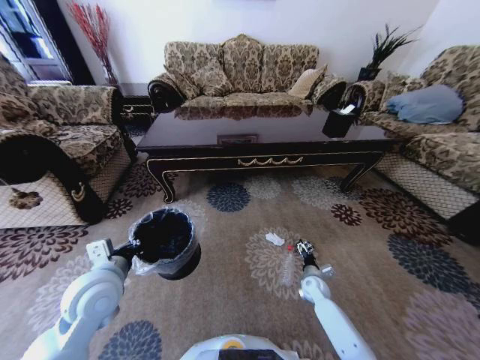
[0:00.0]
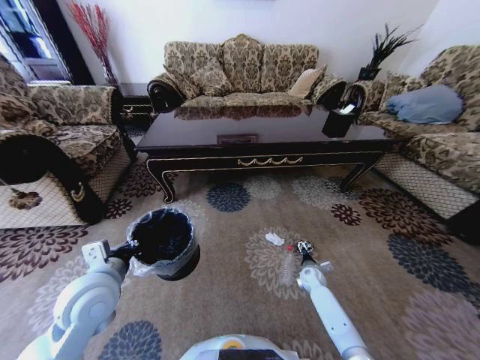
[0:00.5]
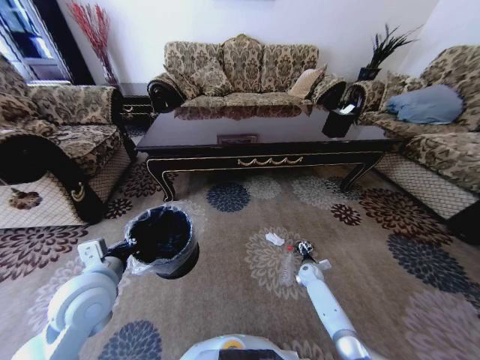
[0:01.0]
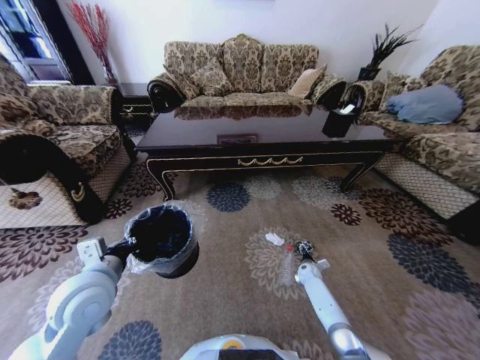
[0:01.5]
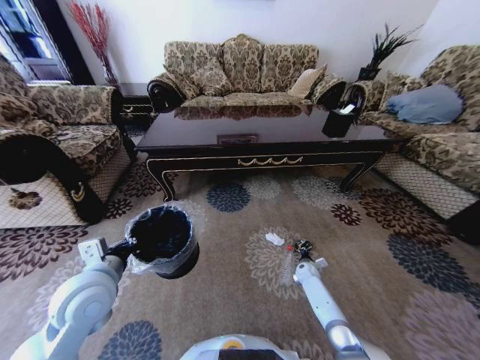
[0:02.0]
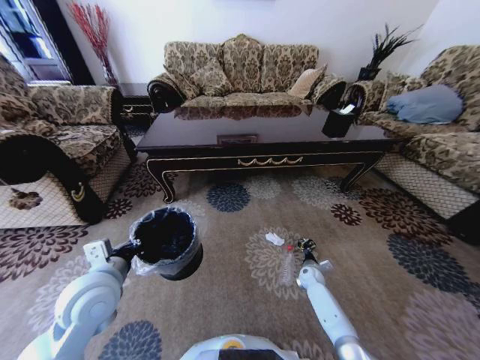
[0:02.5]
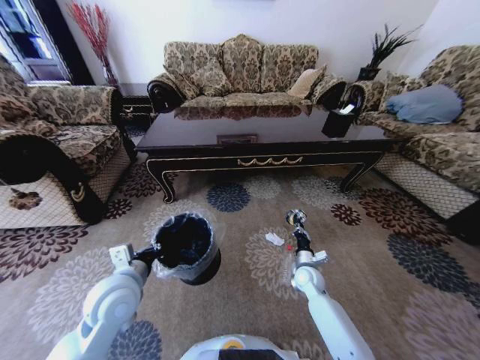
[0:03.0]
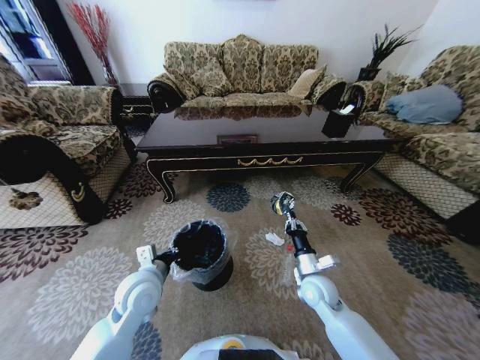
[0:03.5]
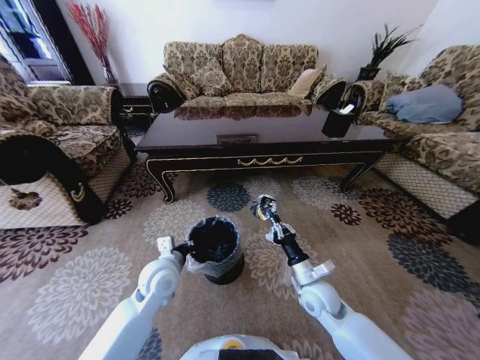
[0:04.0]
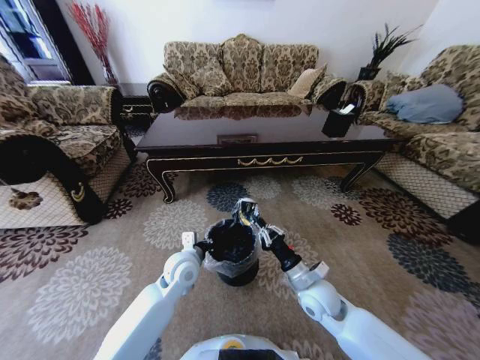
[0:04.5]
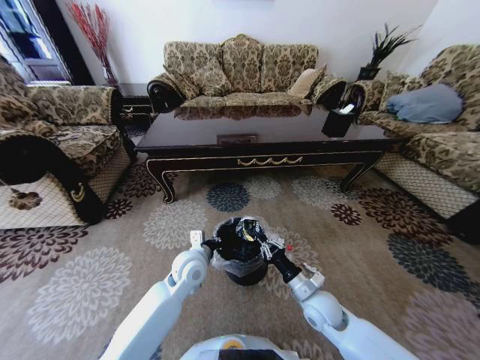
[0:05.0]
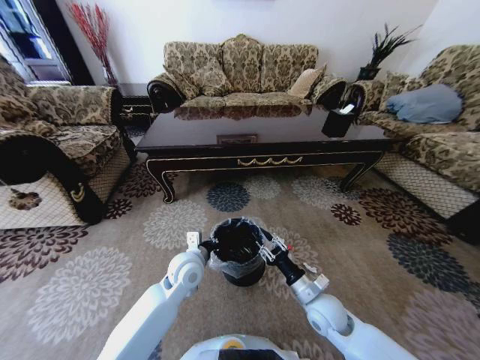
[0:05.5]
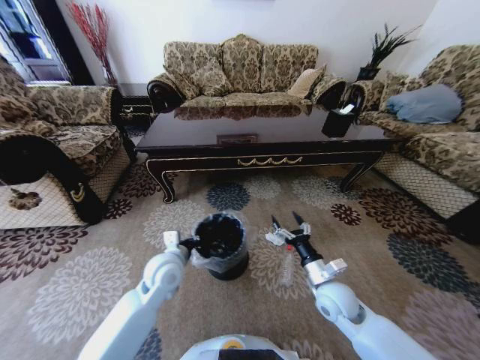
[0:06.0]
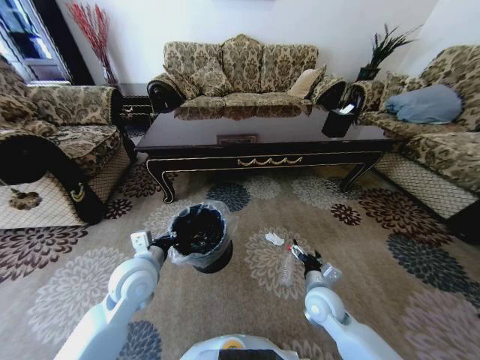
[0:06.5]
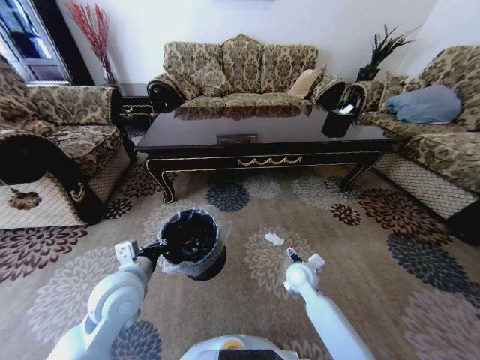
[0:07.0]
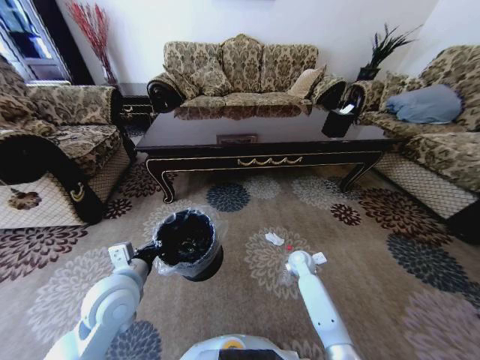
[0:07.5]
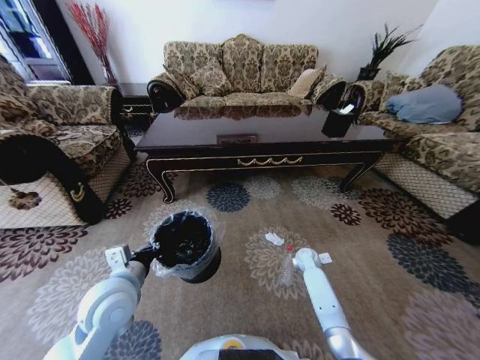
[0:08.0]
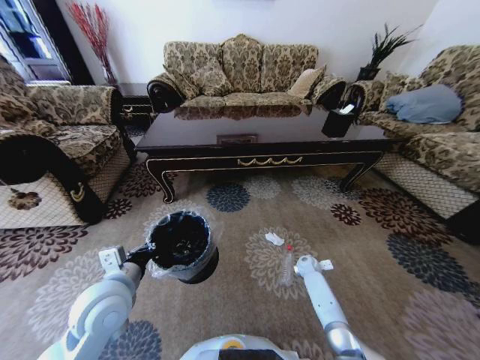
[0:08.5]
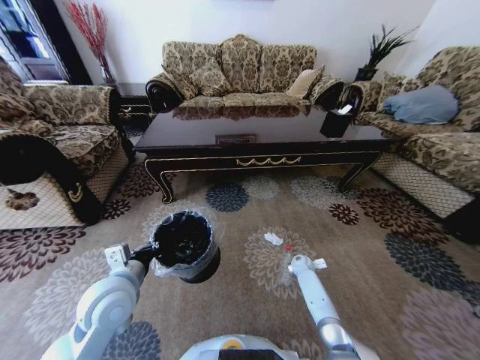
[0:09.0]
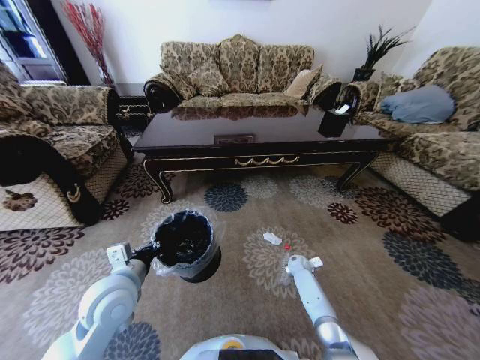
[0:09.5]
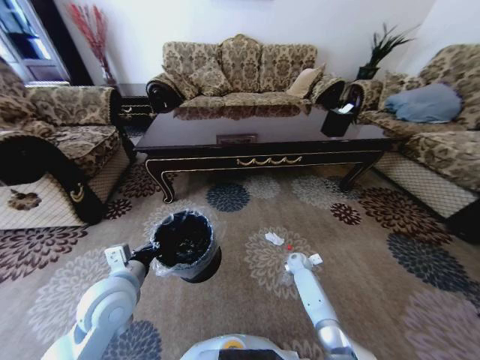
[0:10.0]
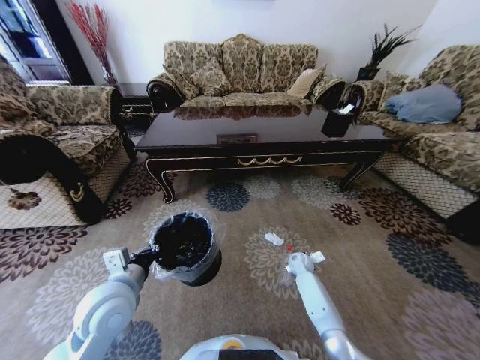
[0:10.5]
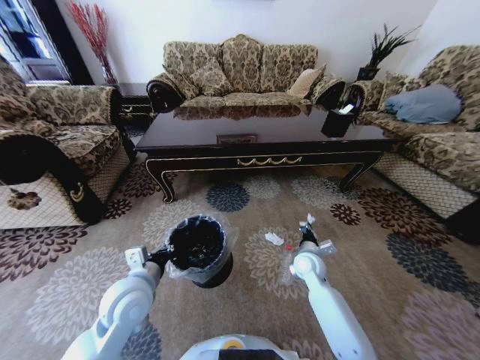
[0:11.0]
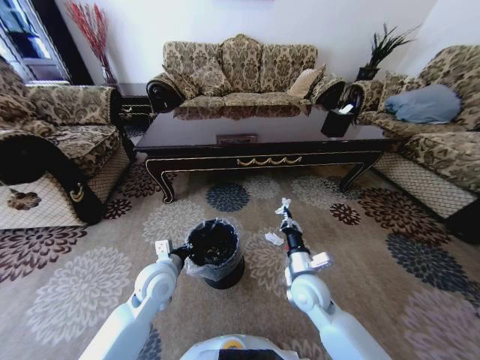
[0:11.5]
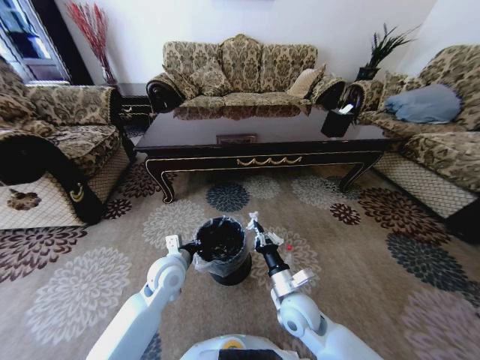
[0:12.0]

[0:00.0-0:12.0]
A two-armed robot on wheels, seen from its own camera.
Task of the whole recording: Move to the front of the table and pick up the trash from the floor, then place it into the trash bin.
0:00.0 to 0:02.0: The right gripper travels forward by roughly 10 cm, and closes.
0:02.0 to 0:04.0: The right gripper travels upward, backward and to the left by some 30 cm; the left gripper is displaced to the right, downward and forward by roughly 15 cm.
0:04.0 to 0:06.0: The right gripper opens its fingers.
0:06.0 to 0:08.0: The right gripper heads forward and downward, covering about 25 cm, while the left gripper shifts roughly 15 cm backward, to the left and upward.
0:08.0 to 0:10.0: The right gripper closes up.
0:10.0 to 0:12.0: The right gripper shifts about 30 cm backward, upward and to the left, while the left gripper heads forward, to the right and downward, covering approximately 15 cm.

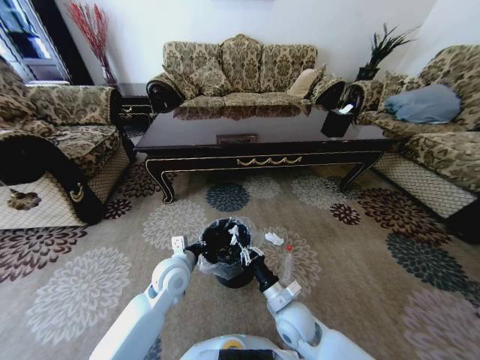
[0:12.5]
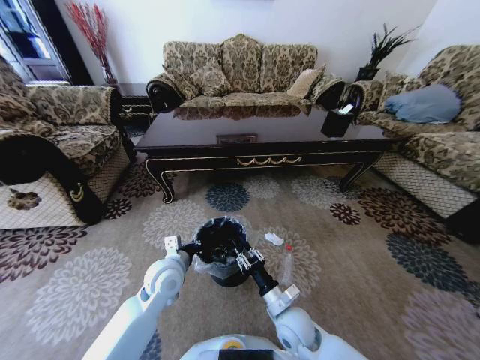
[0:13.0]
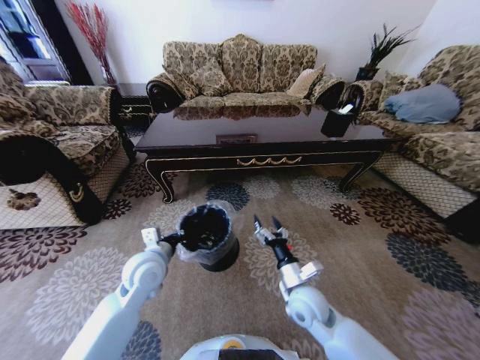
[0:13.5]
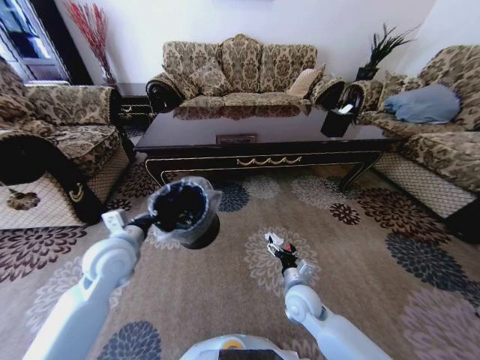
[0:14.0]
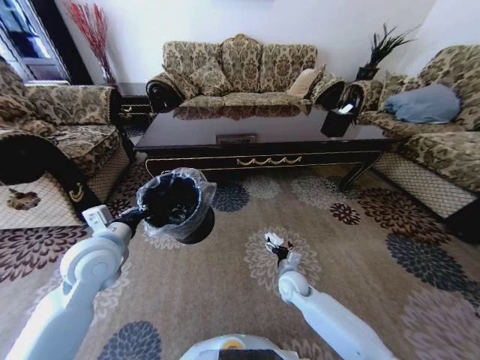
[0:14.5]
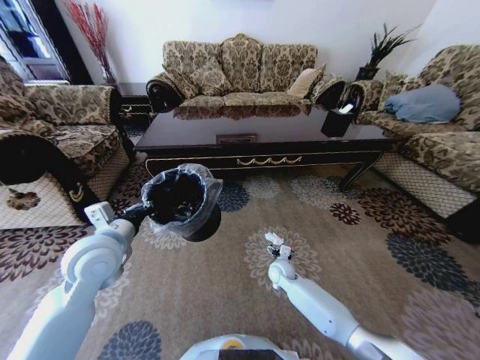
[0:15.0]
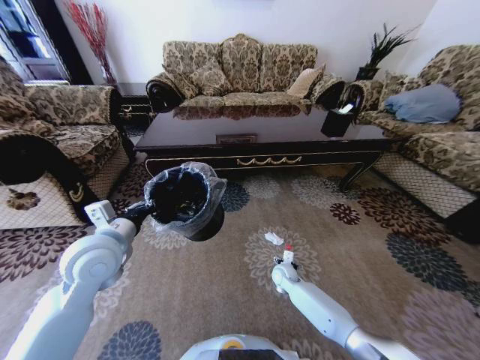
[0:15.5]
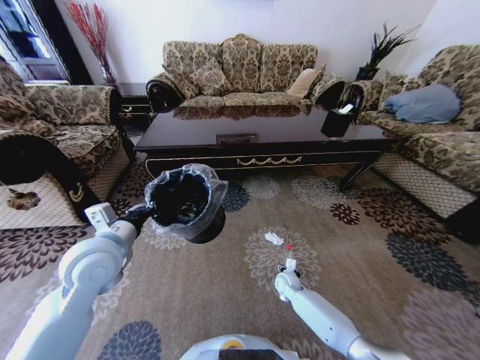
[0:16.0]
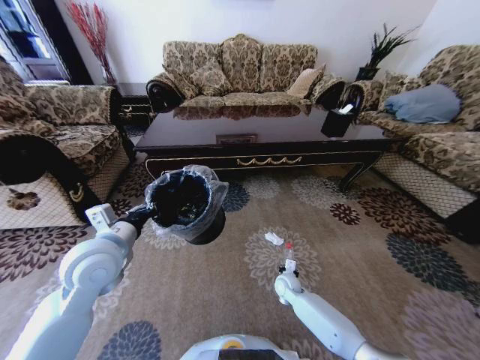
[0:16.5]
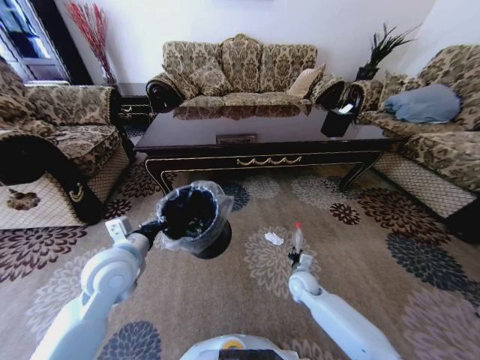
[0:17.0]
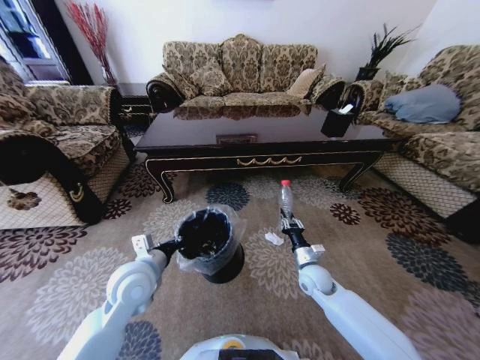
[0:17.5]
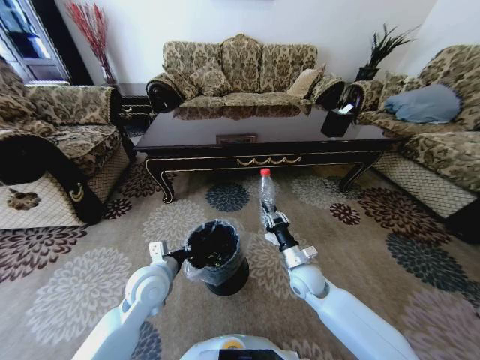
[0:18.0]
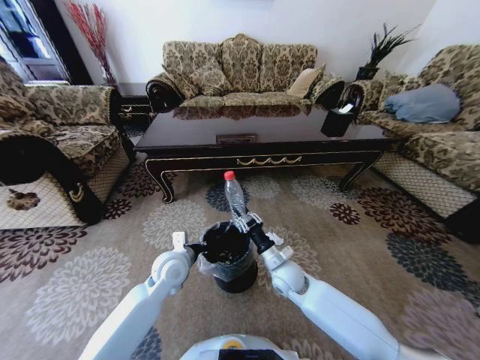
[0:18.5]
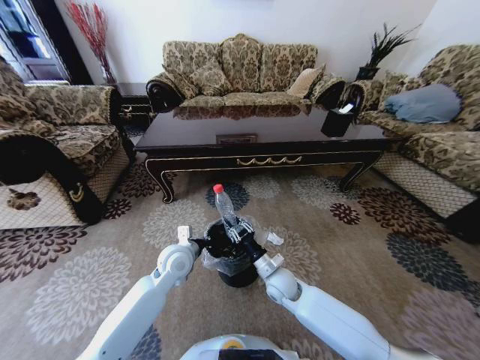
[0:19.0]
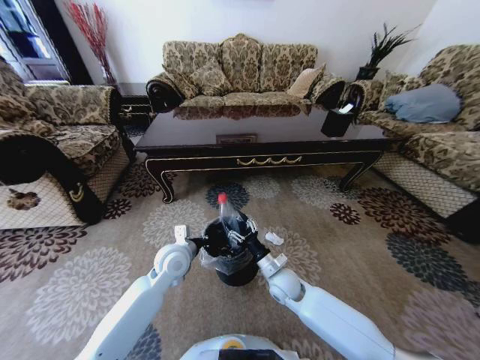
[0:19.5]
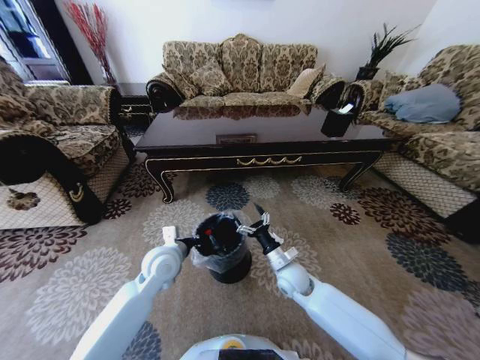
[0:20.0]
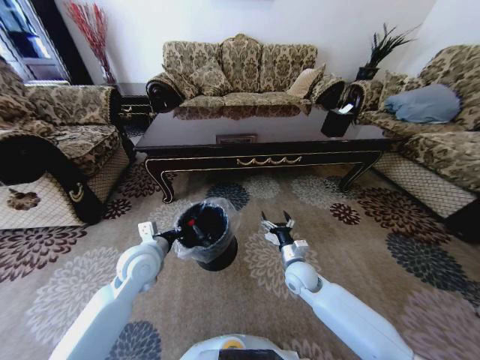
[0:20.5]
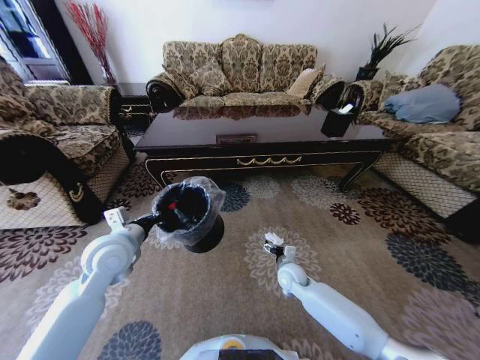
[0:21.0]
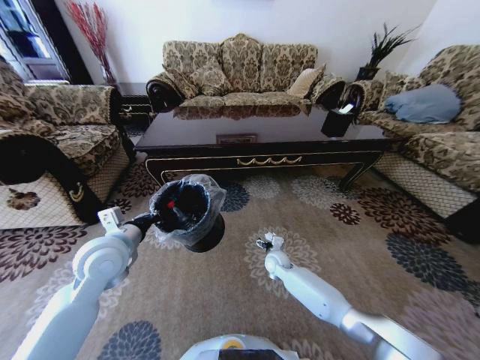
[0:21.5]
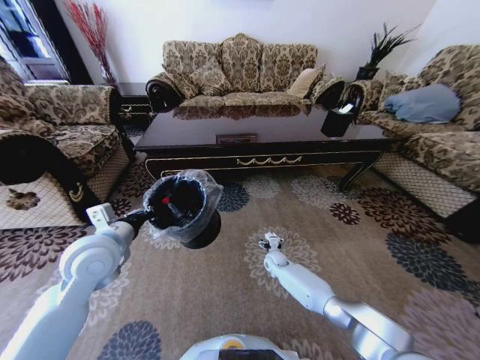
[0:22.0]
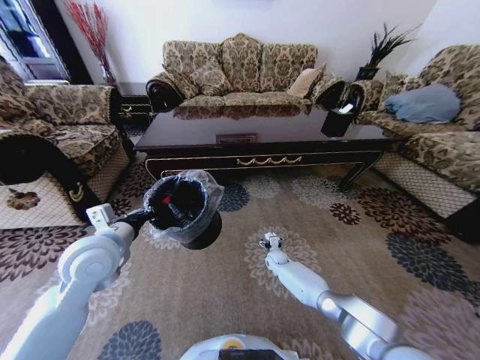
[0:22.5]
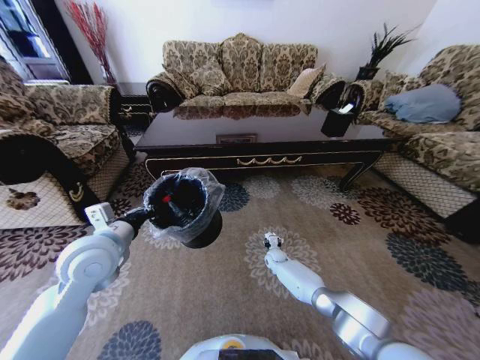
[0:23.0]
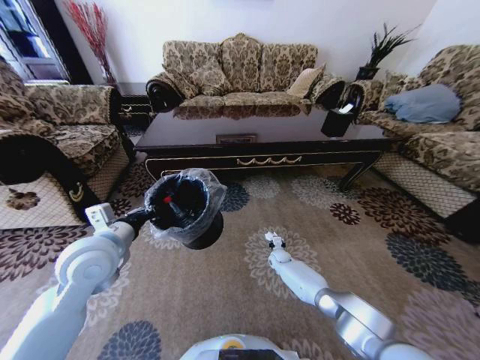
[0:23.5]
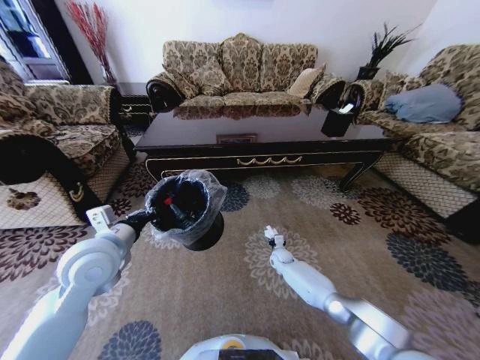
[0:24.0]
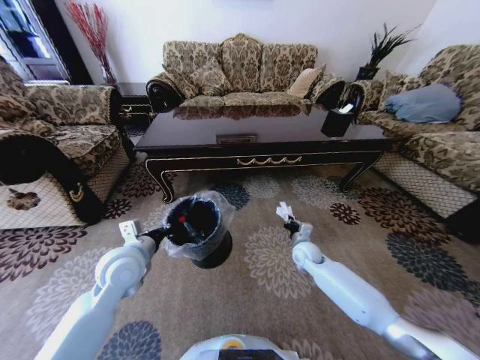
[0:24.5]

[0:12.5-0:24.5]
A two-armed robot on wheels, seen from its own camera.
Task of the whole recording: Move to the front of the table and pick up the trash from the floor, then place it into the trash bin.
0:12.5 to 0:14.5: The right gripper shifts some 15 cm forward and downward, and opens its fingers. Meanwhile the left gripper is displaced upward and to the left by some 20 cm.
0:14.5 to 0:16.5: The right gripper shifts about 5 cm downward, and closes.
0:16.5 to 0:18.5: The right gripper shifts about 15 cm upward, while the left gripper shifts approximately 15 cm downward and to the right.
0:18.5 to 0:20.5: The right gripper is displaced to the right by about 5 cm, and opens its fingers, while the left gripper moves to the left and upward, some 10 cm.
0:20.5 to 0:22.5: The left gripper goes roughly 10 cm upward and to the left, while the right gripper goes about 20 cm downward and forward.
0:22.5 to 0:24.5: The right gripper shifts about 15 cm upward and to the right, and closes its fingers. Meanwhile the left gripper heads downward, covering about 5 cm.

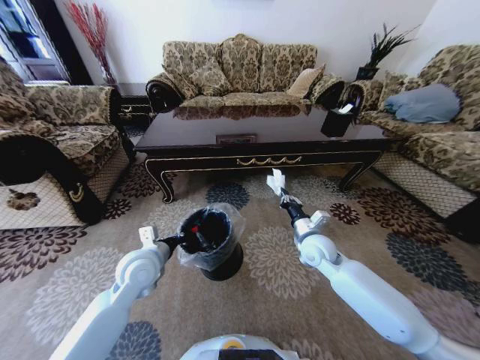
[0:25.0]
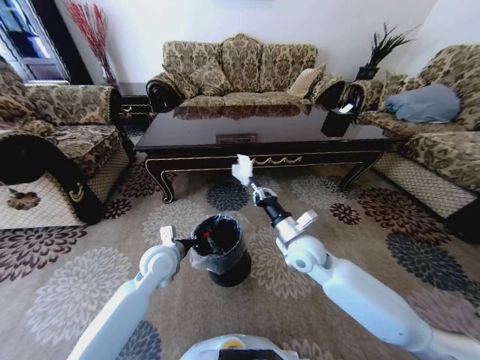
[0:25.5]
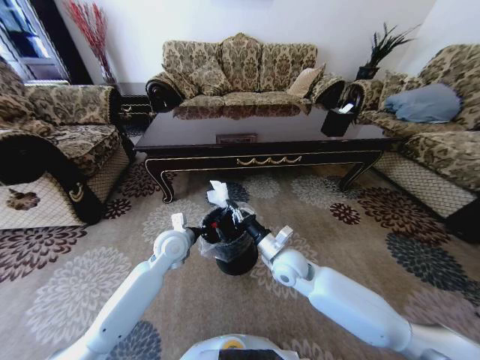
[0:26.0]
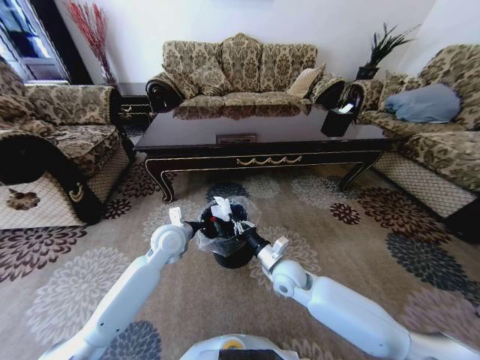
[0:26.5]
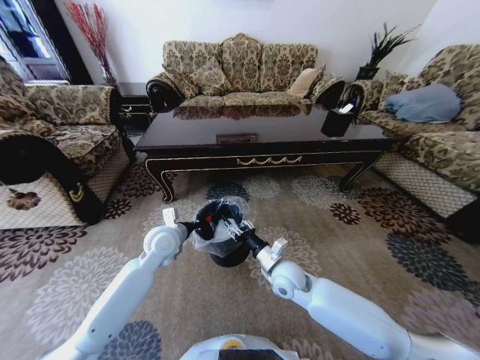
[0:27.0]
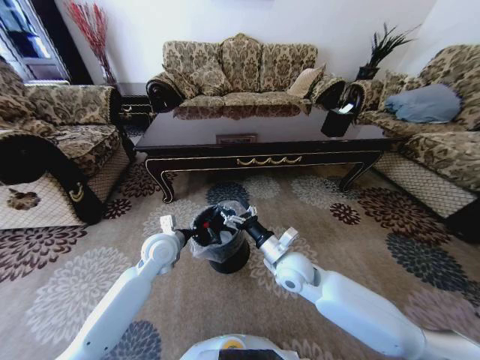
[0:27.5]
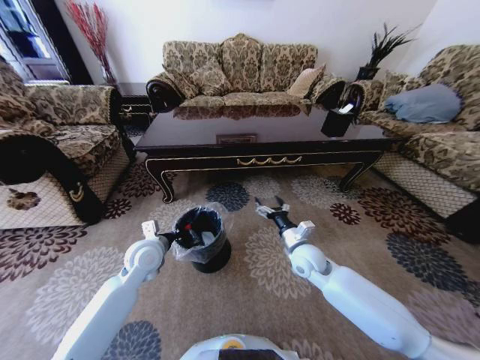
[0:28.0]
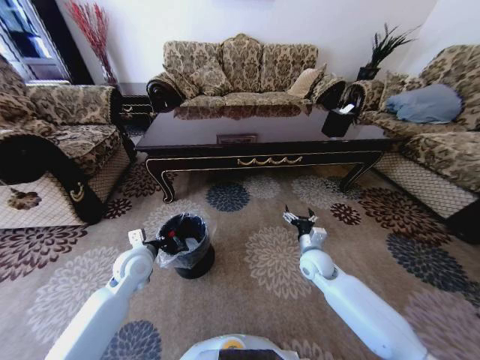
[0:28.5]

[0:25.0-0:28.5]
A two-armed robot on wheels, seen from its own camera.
Task of the whole recording: Move to the front of the table and pick up the trash from the floor, then place it into the trash bin.
0:25.0 to 0:27.0: The right gripper is displaced to the left and backward by about 10 cm, and opens. The left gripper moves forward, about 10 cm.
0:27.0 to 0:28.5: The left gripper moves to the left, roughly 10 cm; the right gripper heads to the right and forward, covering some 15 cm, and opens.
